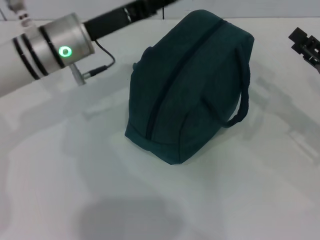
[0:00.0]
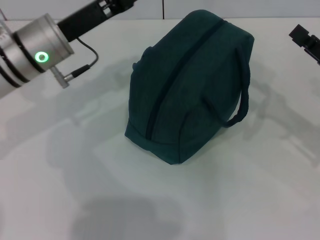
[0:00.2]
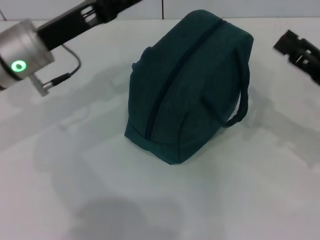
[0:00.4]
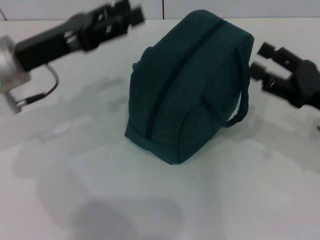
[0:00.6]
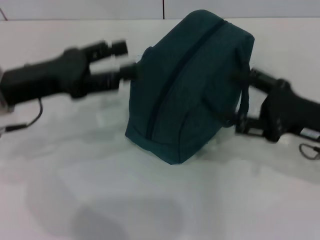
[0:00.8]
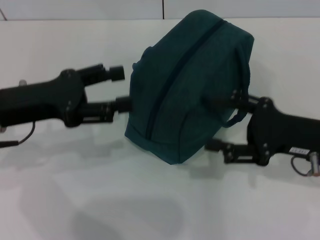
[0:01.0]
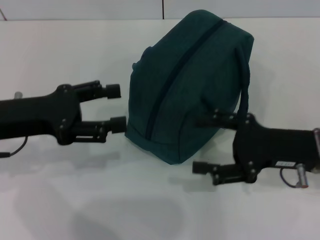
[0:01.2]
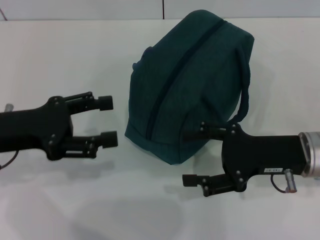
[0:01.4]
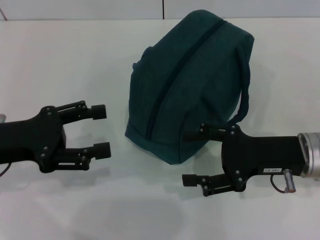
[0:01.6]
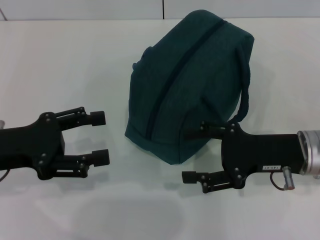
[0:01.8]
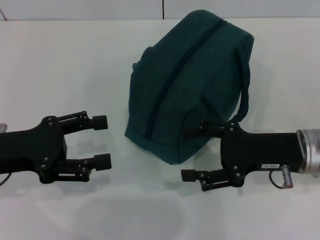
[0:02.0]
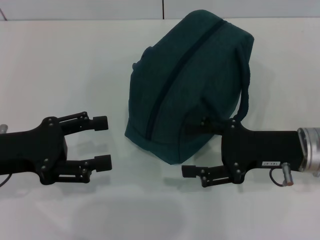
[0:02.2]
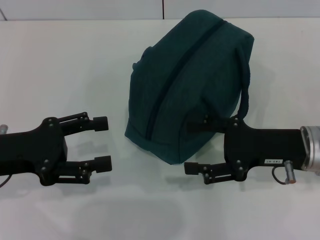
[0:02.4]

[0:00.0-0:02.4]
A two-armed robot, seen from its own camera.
0:00.0 to 0:01.2: The left gripper shifts roughly 15 cm to the left and backward, and opens its fingers. Meanwhile the right gripper moves to the left, roughly 10 cm.
0:01.2 to 0:02.4: The grippers stay close to where they were, moving slightly.
